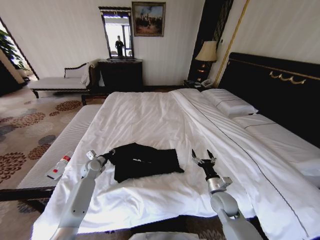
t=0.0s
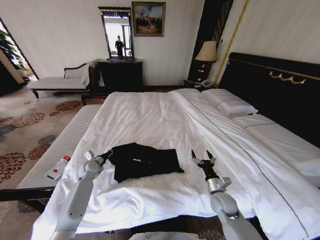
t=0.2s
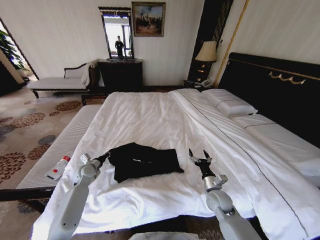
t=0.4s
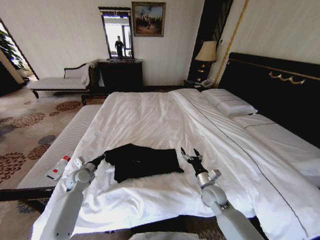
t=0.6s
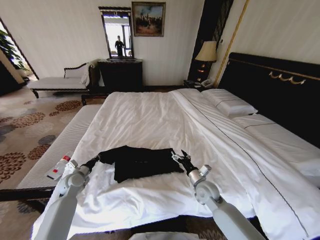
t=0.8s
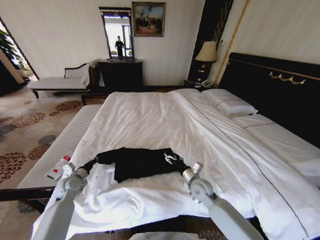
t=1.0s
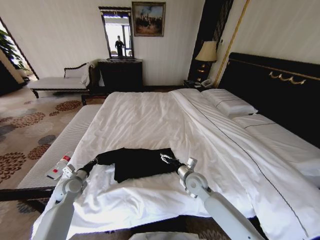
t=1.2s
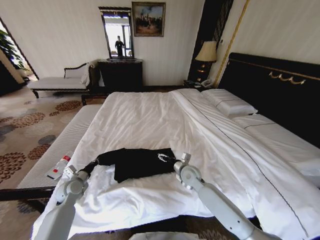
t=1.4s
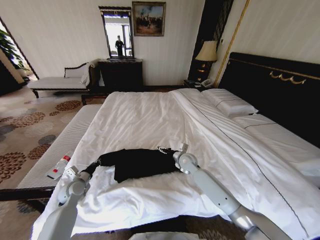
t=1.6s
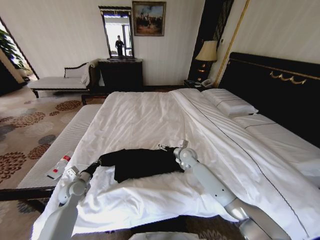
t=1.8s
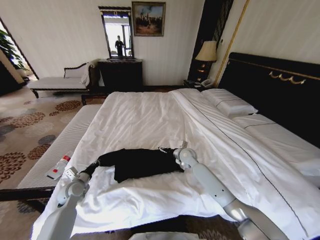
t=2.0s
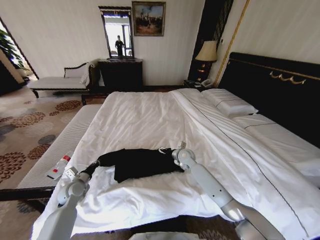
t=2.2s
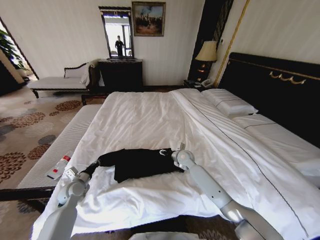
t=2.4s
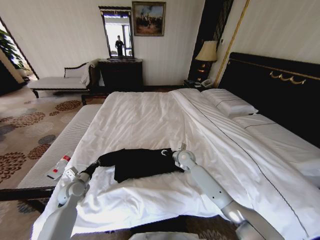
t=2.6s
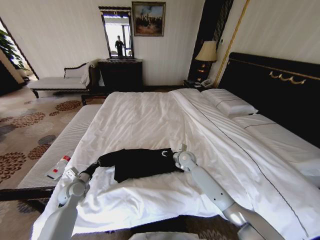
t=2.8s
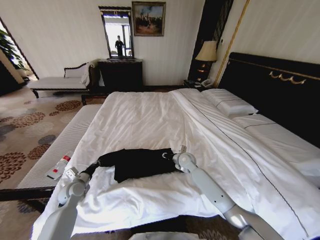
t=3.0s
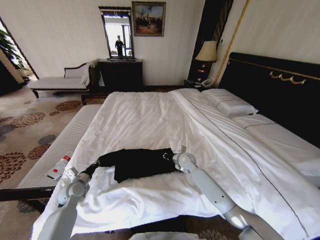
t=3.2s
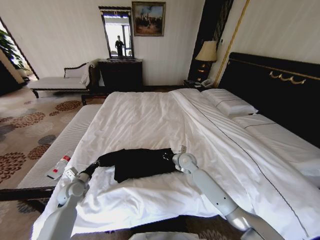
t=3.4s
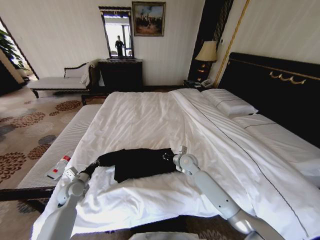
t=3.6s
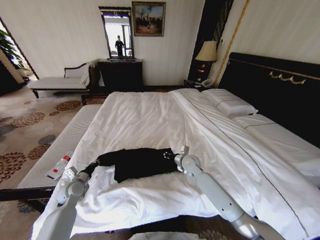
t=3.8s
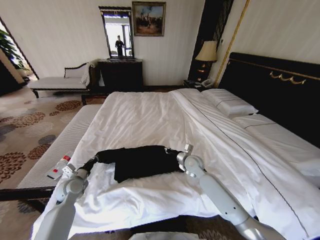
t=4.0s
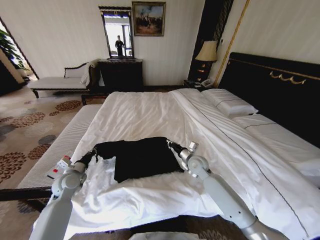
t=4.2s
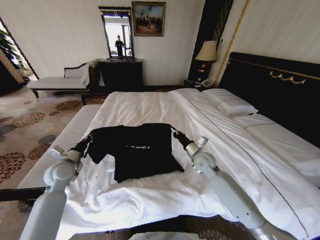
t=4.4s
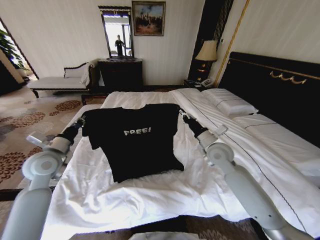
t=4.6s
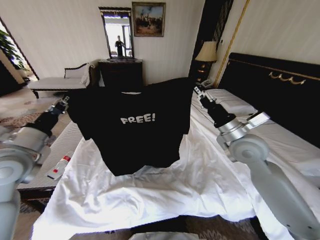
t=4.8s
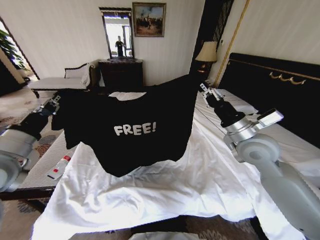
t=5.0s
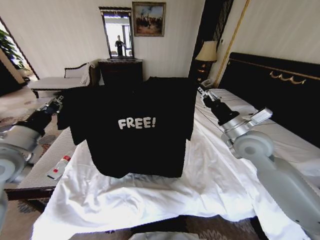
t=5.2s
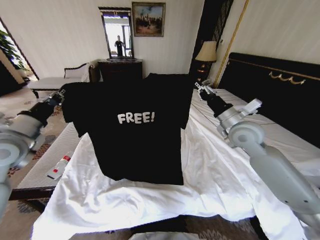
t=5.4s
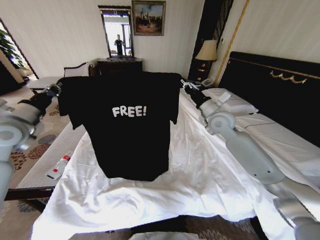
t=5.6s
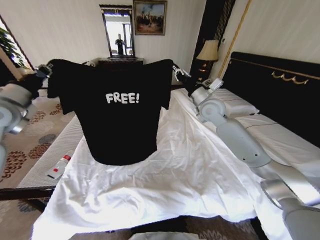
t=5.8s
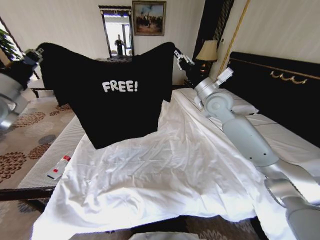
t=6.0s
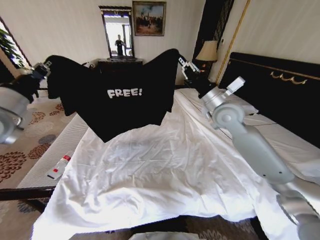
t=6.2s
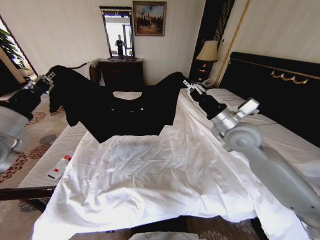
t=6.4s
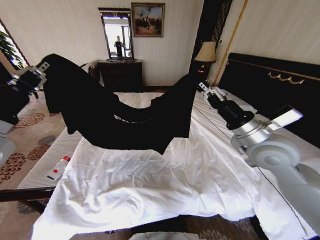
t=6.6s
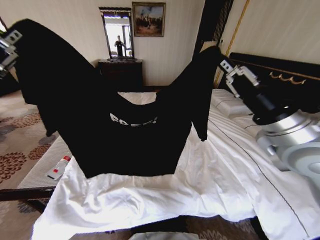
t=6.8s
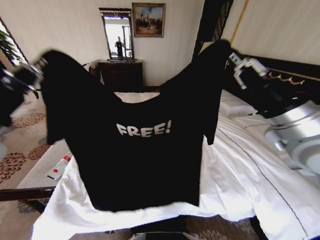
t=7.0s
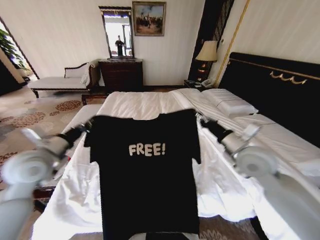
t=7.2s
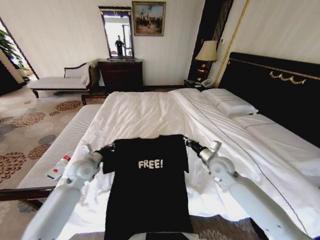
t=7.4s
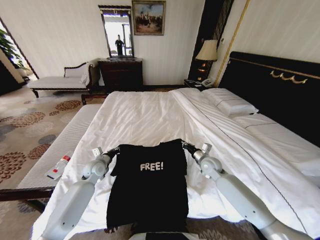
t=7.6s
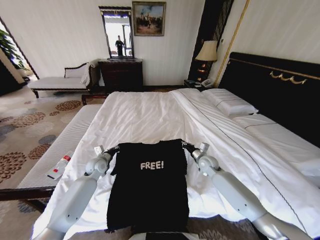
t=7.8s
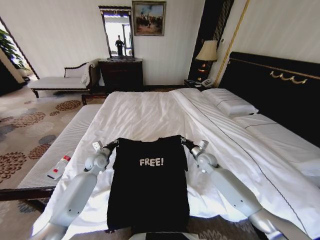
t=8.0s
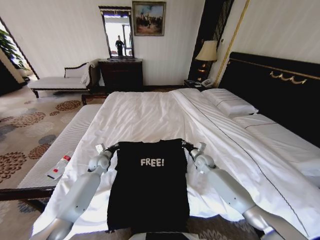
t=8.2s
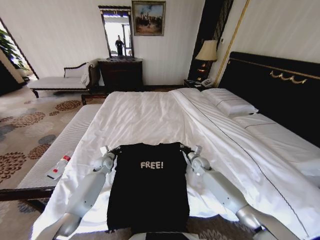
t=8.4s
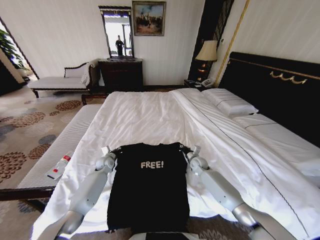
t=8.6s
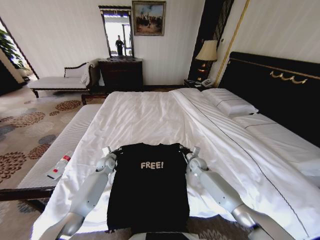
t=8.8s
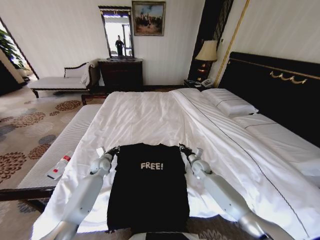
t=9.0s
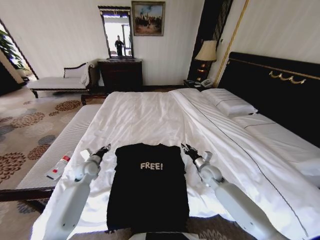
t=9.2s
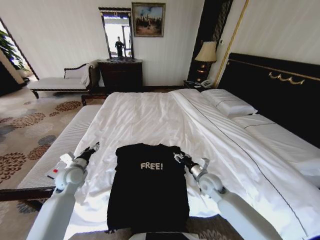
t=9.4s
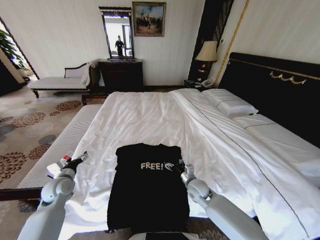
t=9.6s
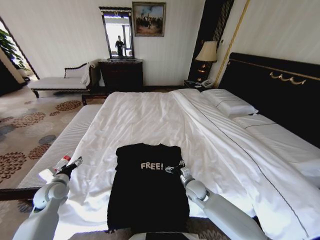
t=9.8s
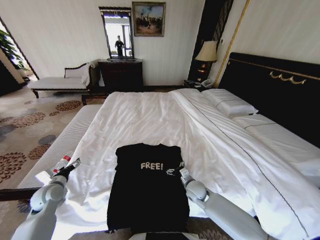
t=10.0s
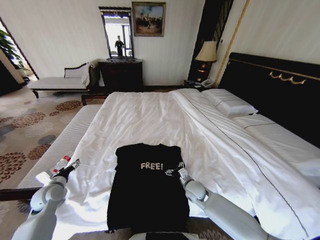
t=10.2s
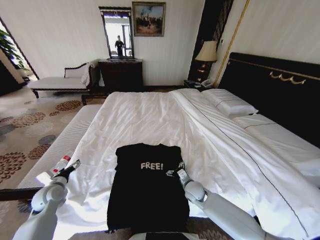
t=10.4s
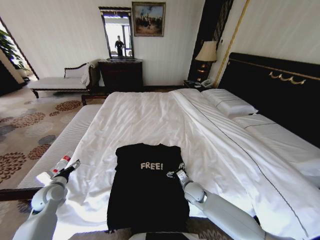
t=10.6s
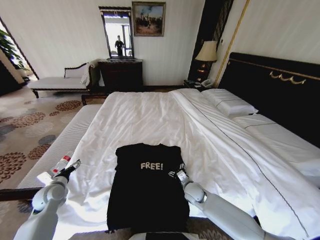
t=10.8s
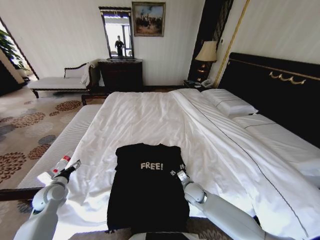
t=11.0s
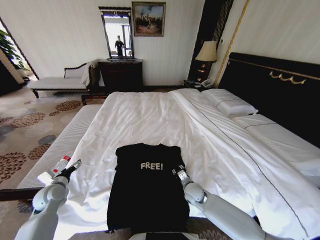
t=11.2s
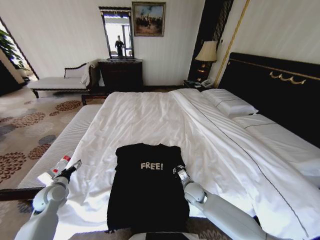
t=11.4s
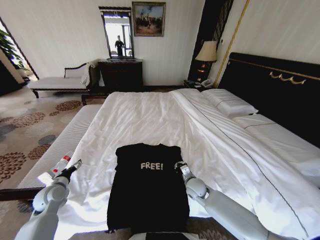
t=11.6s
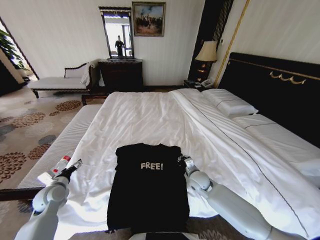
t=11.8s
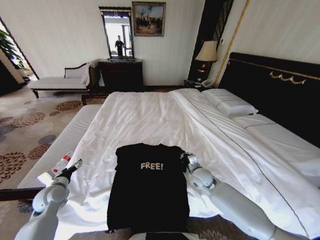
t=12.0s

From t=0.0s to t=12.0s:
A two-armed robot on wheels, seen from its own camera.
Task of the whole recording: Fold the clothes on the bed.
From t=0.0s to t=1.6s: The right gripper goes approximately 20 cm forward and to the left. Meanwhile the left gripper is displaced backward by roughly 10 cm.
From t=1.6s to t=3.0s: The right gripper closes.
From t=3.0s to t=4.4s: The right gripper goes about 10 cm upward, backward and to the right; the left gripper goes about 15 cm upward.
From t=4.4s to t=6.0s: The two grippers go about 25 cm upward.
From t=6.0s to t=7.6s: The right gripper swings up and down, roughly 30 cm each way, with 2 reversals. Meanwhile the left gripper goes up and down, some 35 cm each way, reversing 2 times.
From t=7.6s to t=9.0s: The right gripper is displaced downward by some 10 cm; the left gripper moves downward and forward, about 5 cm.
From t=9.0s to t=10.4s: The left gripper shifts about 20 cm backward and to the left, and opens up. The right gripper is displaced backward and to the left by approximately 15 cm, and opens its fingers.
From t=10.4s to t=12.0s: The right gripper heads upward, covering about 5 cm, and closes up.

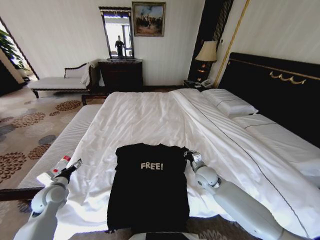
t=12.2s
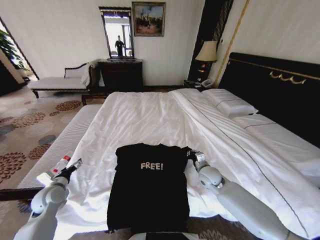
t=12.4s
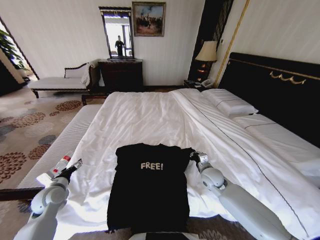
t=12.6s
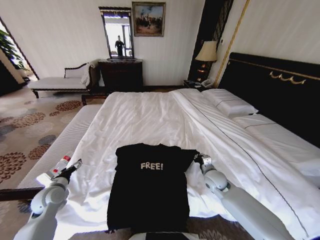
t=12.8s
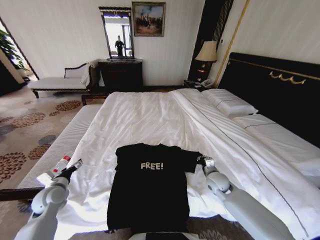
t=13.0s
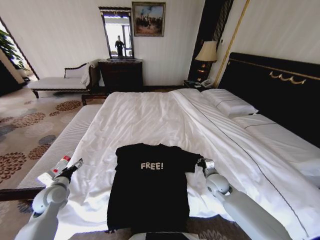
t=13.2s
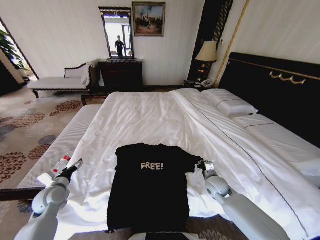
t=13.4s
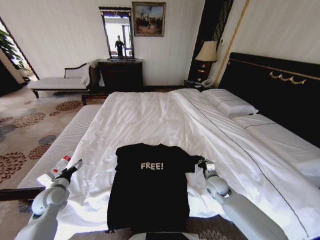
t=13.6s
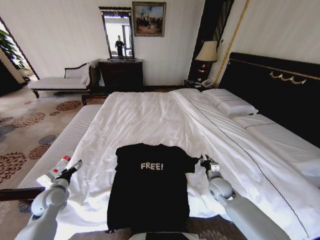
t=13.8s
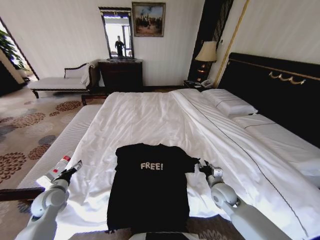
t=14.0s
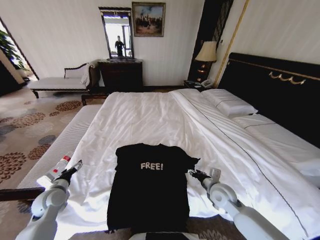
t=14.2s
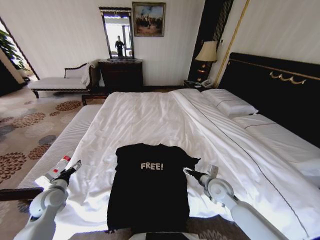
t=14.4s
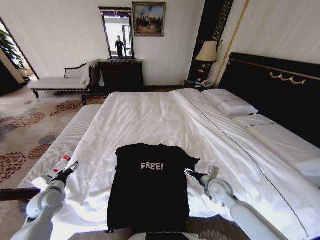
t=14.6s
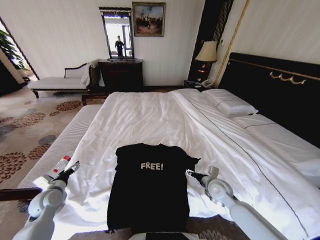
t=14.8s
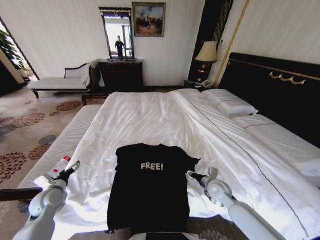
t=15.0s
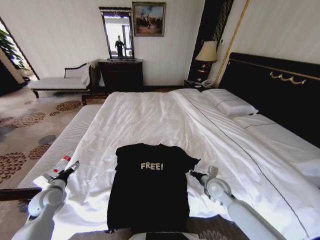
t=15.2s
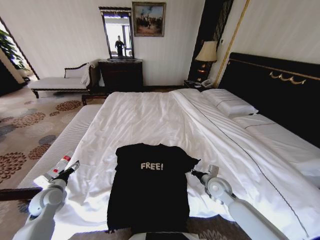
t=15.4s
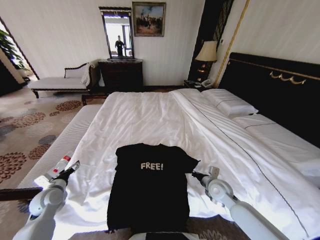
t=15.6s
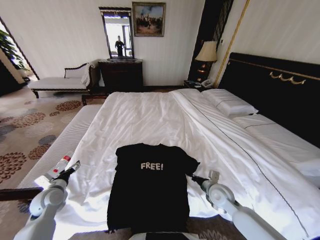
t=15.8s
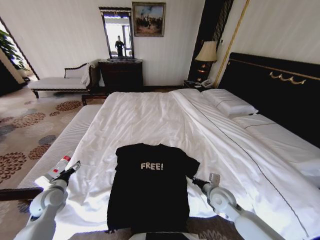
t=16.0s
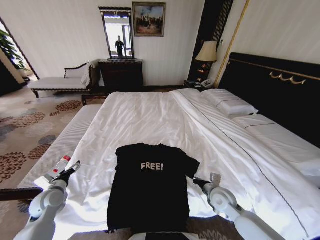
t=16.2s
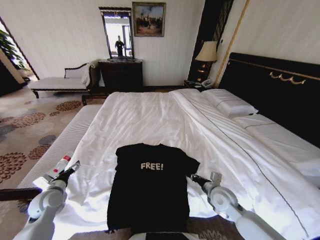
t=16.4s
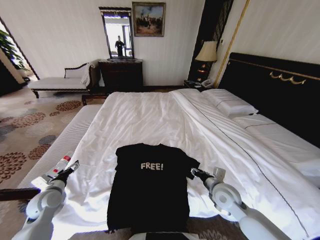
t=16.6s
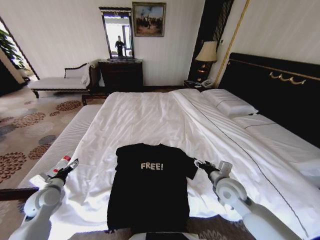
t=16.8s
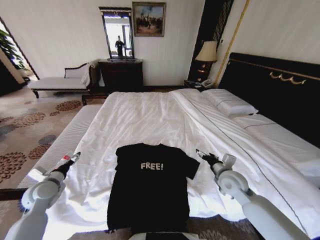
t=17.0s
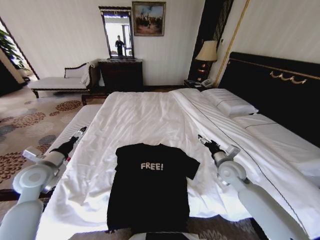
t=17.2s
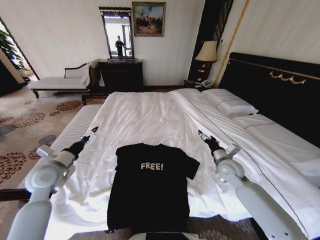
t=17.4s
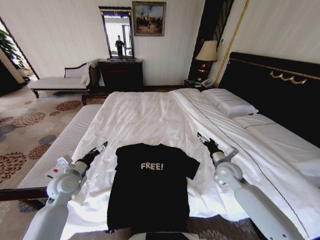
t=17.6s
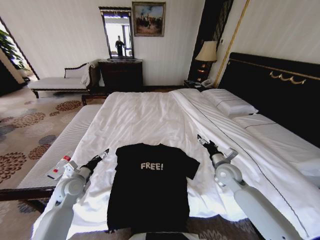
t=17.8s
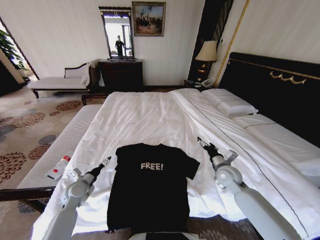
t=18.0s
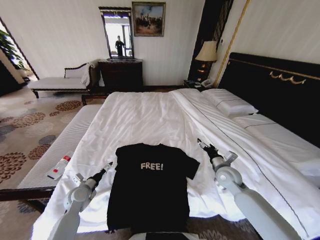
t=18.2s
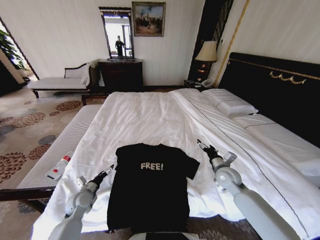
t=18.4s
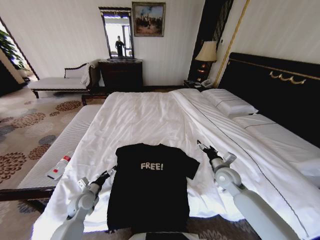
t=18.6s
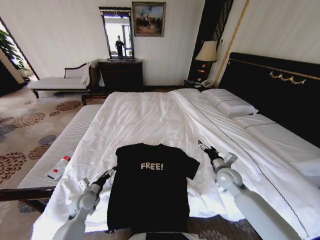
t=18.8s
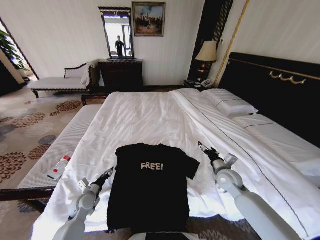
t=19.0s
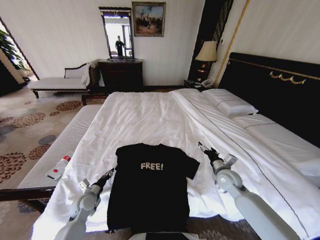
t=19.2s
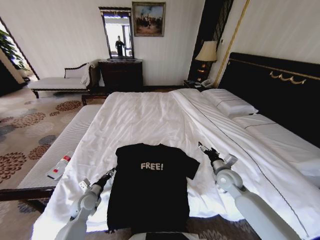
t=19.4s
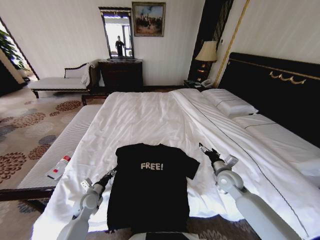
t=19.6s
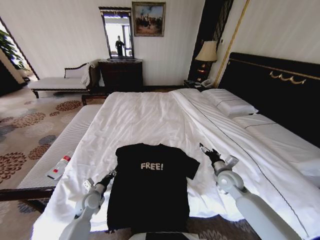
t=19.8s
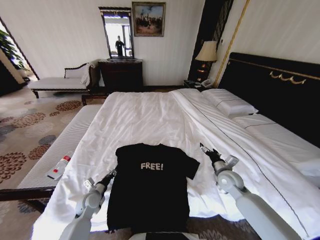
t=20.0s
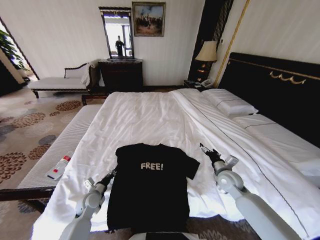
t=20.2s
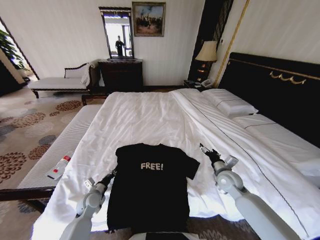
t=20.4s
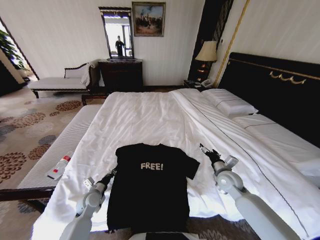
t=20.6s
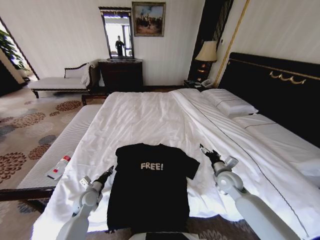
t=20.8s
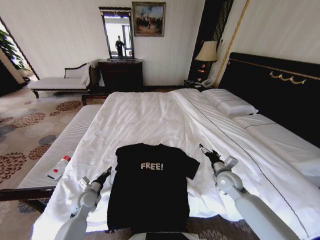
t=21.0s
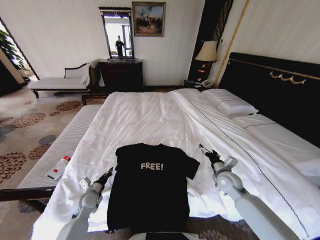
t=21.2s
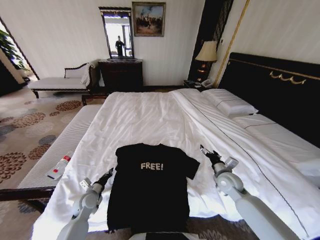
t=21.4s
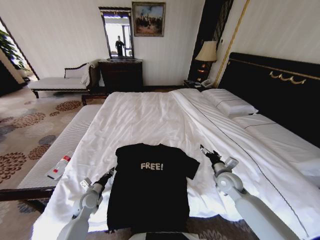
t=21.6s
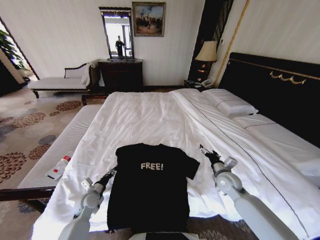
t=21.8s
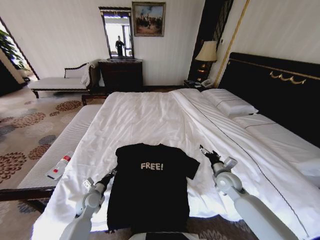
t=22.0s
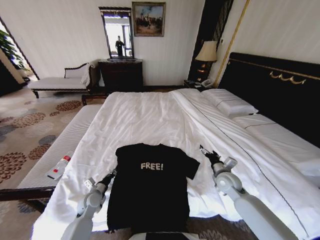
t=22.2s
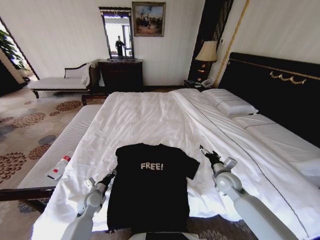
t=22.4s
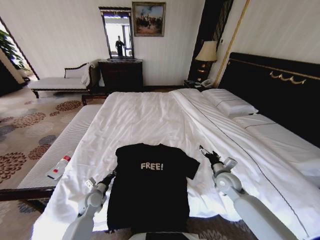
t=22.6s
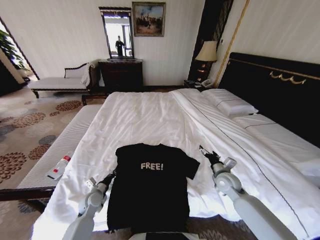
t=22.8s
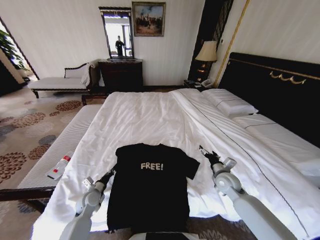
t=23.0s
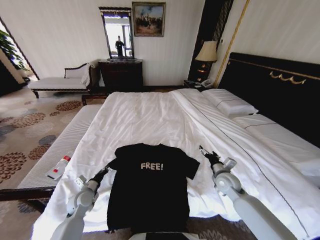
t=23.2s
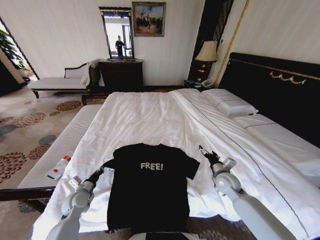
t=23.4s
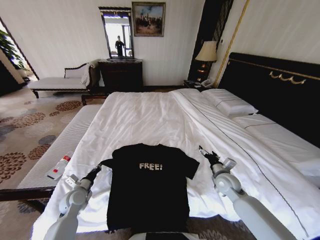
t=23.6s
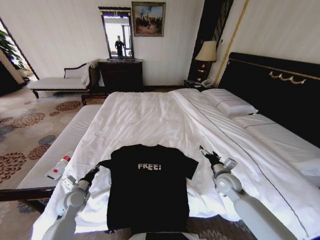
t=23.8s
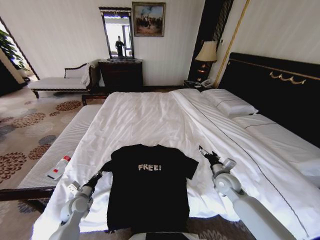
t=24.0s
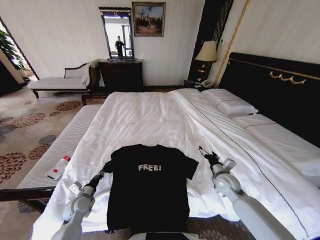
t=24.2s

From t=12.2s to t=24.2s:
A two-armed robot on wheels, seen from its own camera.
Task of the whole recording: Fold the clothes on the bed.
From t=12.2s to t=13.8s: The right gripper moves to the right, about 5 cm.
From t=13.8s to t=15.2s: The right gripper opens, then closes again.
From t=15.2s to t=16.6s: The right gripper ends up approximately 5 cm from where it was, and closes and opens again.
From t=16.6s to t=18.2s: The right gripper shifts about 10 cm forward and to the right, and opens; the left gripper moves to the right, about 5 cm, and moves approximately 15 cm upward and comes back.
From t=18.2s to t=19.8s: The left gripper ends up approximately 5 cm from where it was, and closes its fingers.
From t=19.8s to t=21.2s: The left gripper closes.
From t=21.2s to t=22.6s: There are only small adjustments of the grippers.
